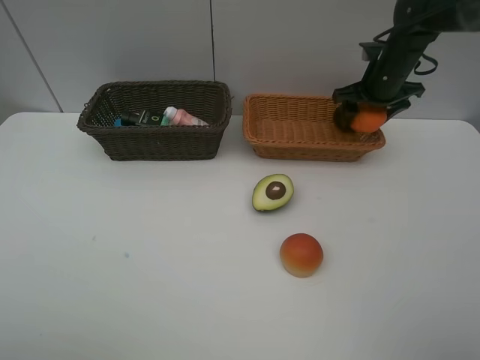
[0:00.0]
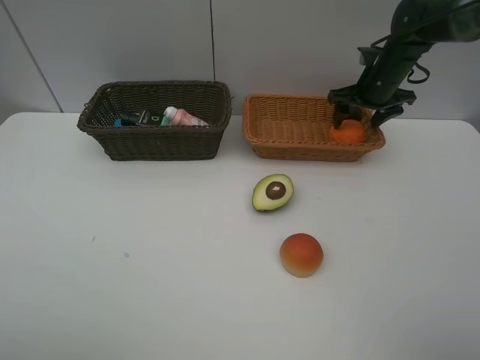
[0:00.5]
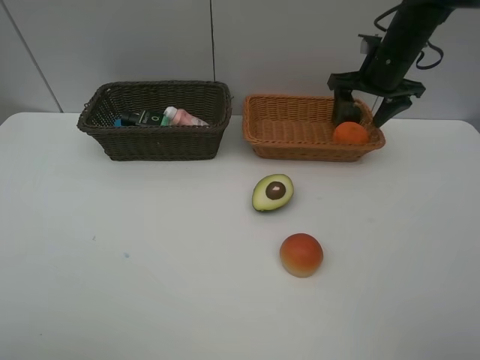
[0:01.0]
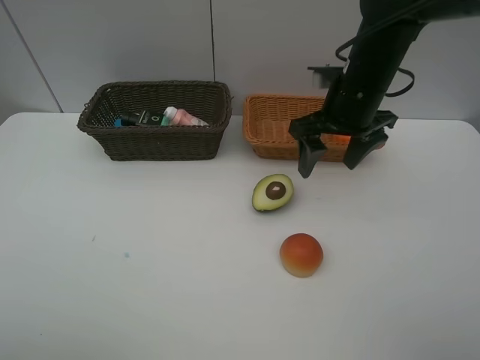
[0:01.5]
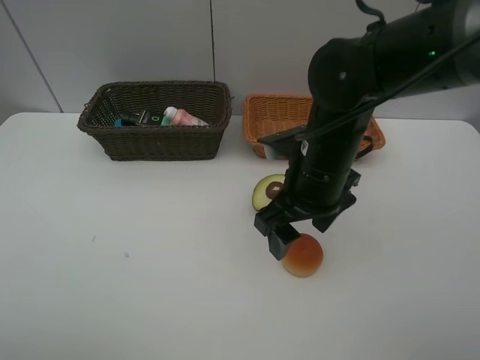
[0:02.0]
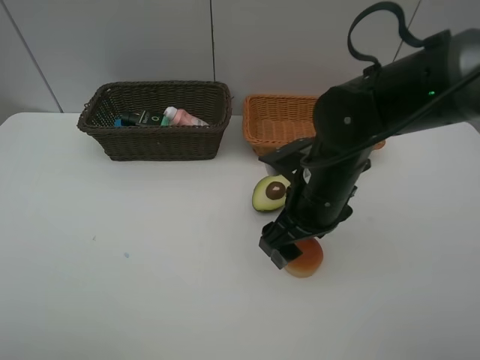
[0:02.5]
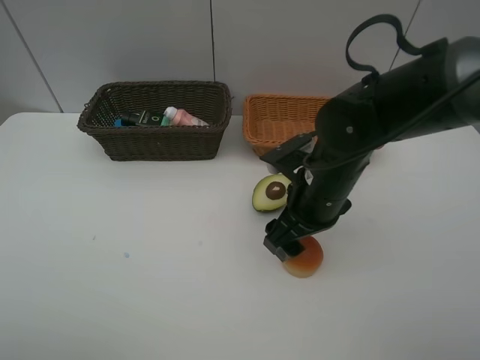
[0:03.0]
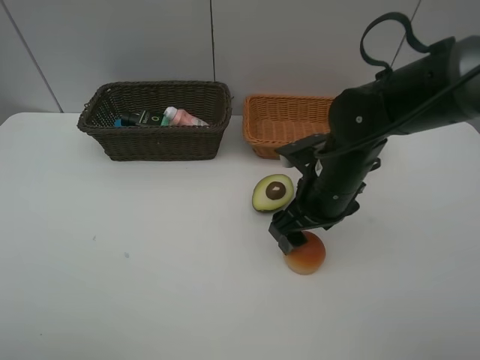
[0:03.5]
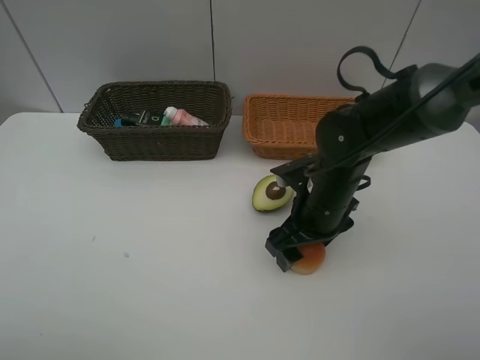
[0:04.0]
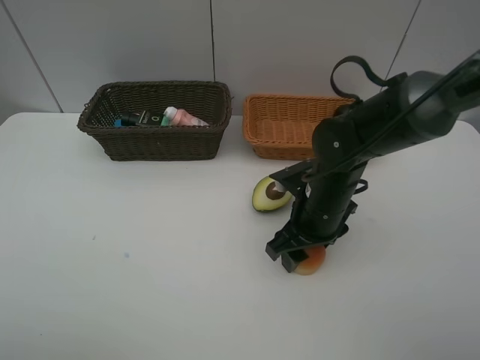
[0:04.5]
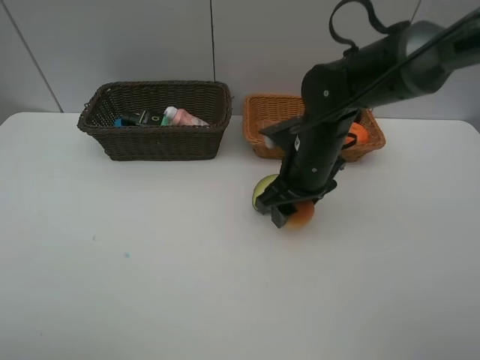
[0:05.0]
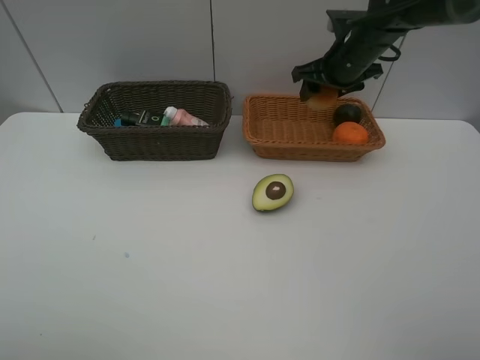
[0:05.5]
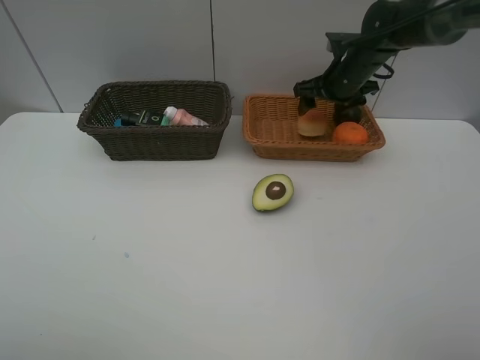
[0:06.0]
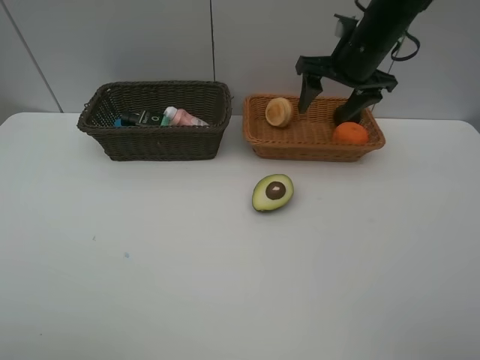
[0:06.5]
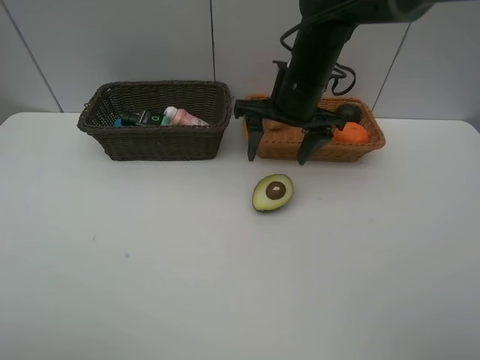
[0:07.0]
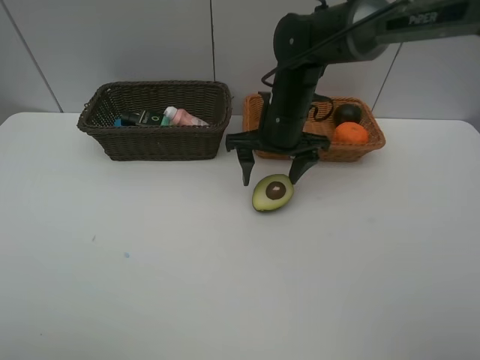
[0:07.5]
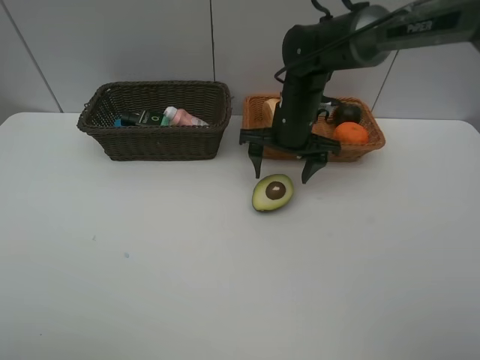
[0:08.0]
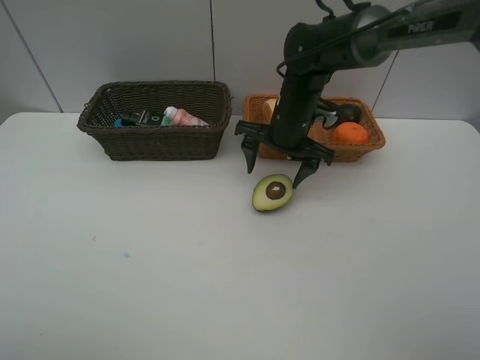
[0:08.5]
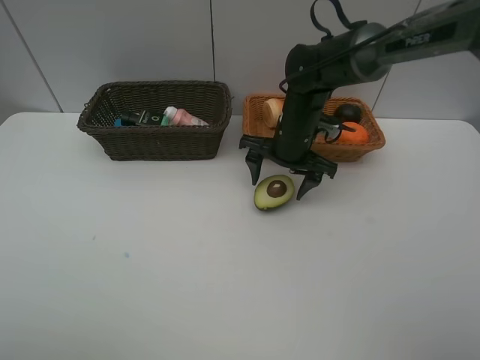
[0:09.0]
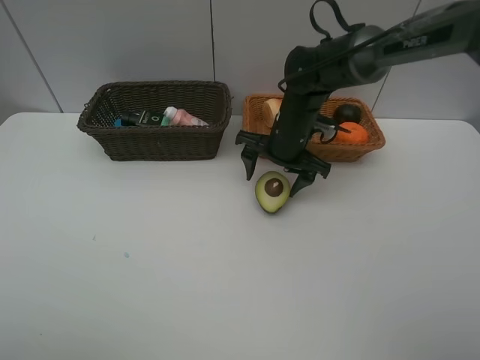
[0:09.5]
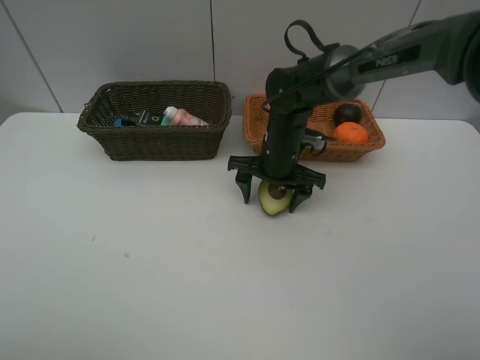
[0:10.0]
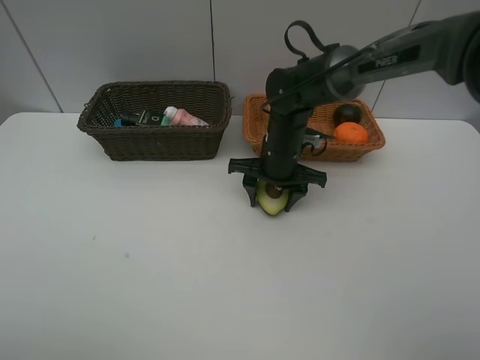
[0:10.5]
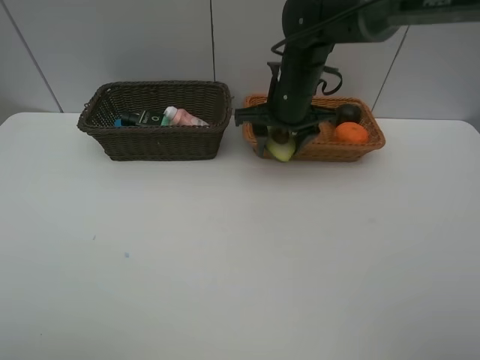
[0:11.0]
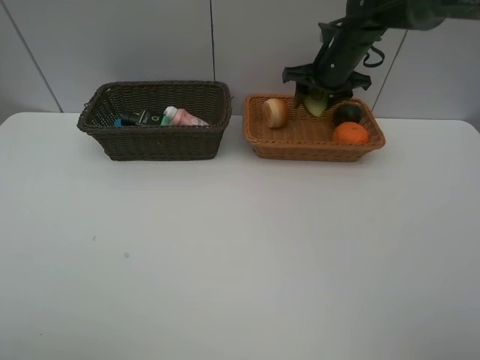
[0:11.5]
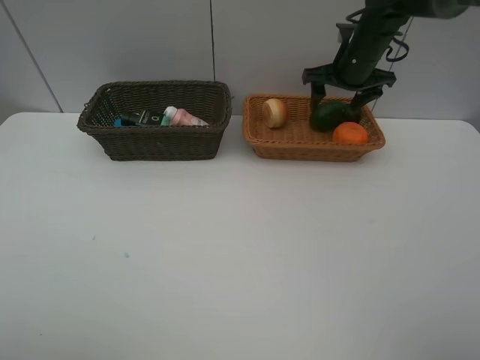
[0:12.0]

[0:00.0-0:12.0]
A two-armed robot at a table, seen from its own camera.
Task of the whole recording: Place multiple objects separately in different baskets.
Step, 0:01.0 to 0:04.5: Pick up egg yolk pastry with right gripper.
Step, 0:05.0 to 0:06.0: Place the egg yolk pastry in the light basket with right gripper.
Step, 0:06.5 to 0:10.5: Pick up the avocado with right gripper.
Step, 0:11.0 to 0:11.5: Place the avocado in the light basket with right gripper.
0:00.0 to 0:02.0: The right gripper is displaced backward and to the left by about 30 cm, and opens up.
0:02.0 to 0:04.0: The right gripper moves downward, roughly 5 cm.
0:04.0 to 0:06.0: The right gripper travels forward by some 20 cm, and closes and opens again.
0:06.0 to 0:08.0: The right gripper goes some 15 cm to the left and backward.
0:08.0 to 0:10.0: The right gripper ends up some 5 cm from where it was.
0:10.0 to 0:12.0: The right gripper moves to the right, upward and forward, about 20 cm, and closes, then opens again.

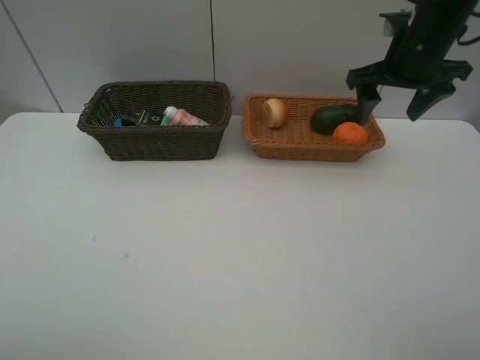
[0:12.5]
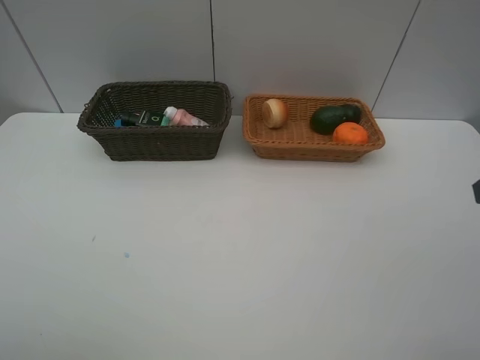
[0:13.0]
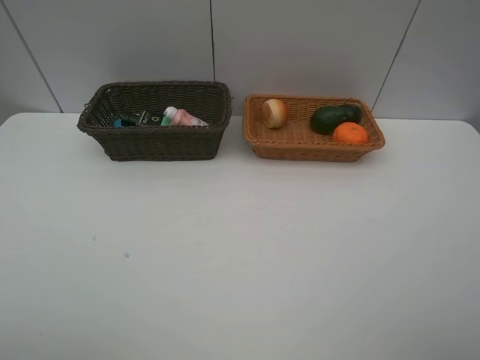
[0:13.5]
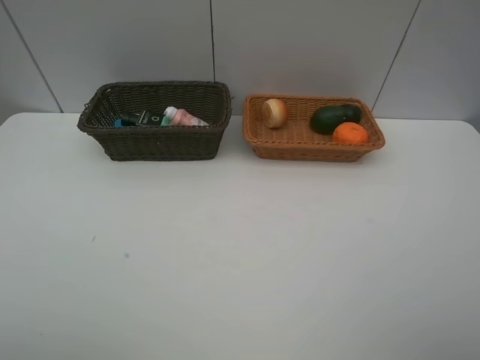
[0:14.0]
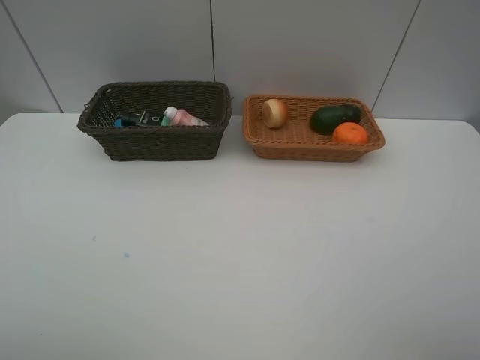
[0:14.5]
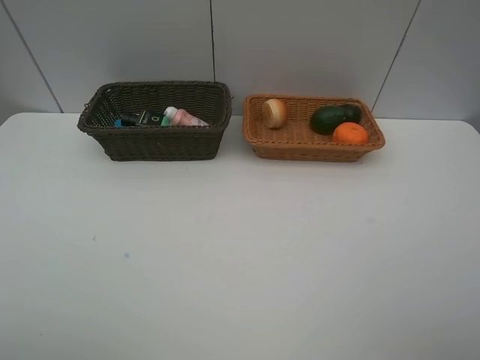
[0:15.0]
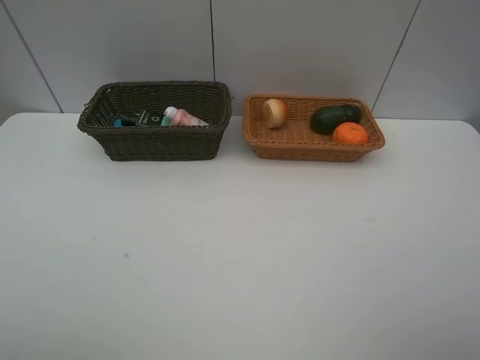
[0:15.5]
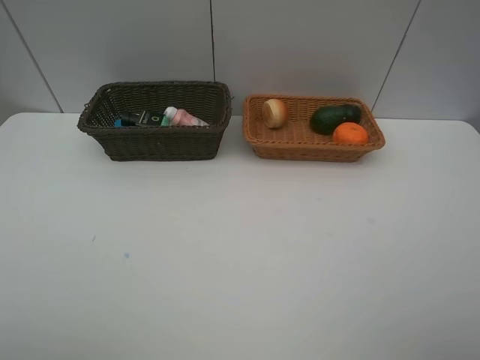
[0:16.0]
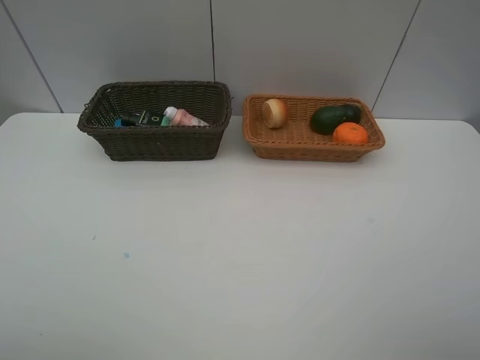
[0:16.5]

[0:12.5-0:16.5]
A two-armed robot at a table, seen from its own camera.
Task of the whole recording: Place multiple objects separately in different baskets.
0:12.5 to 0:14.5: The right gripper is displaced backward by roughly 35 cm.
